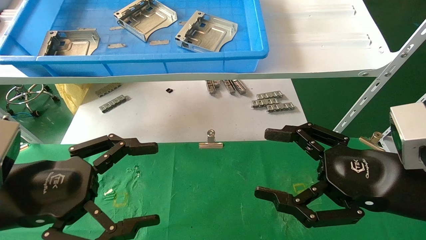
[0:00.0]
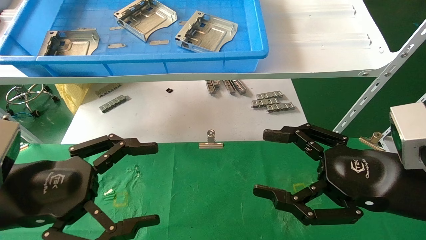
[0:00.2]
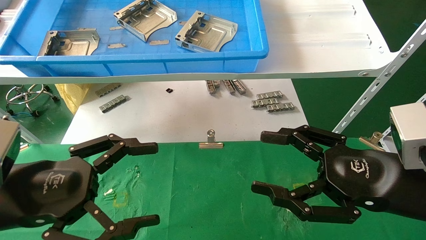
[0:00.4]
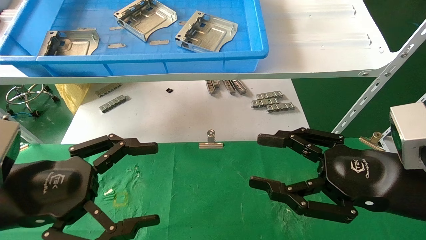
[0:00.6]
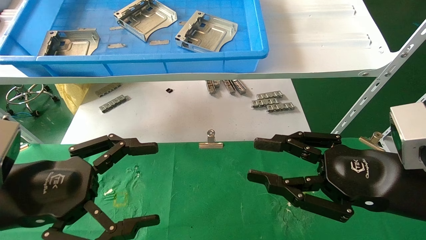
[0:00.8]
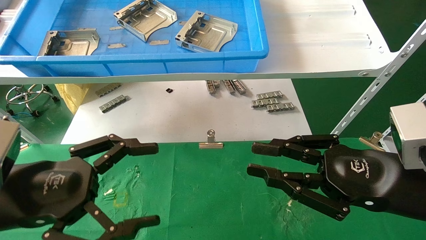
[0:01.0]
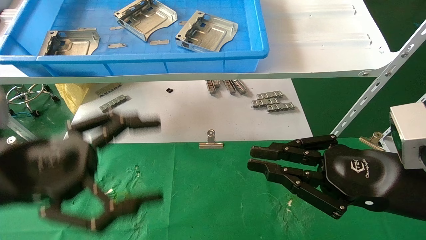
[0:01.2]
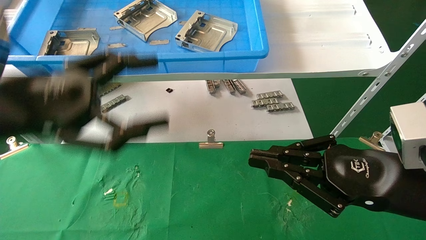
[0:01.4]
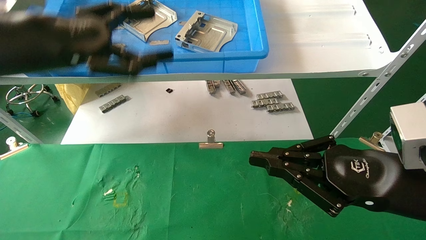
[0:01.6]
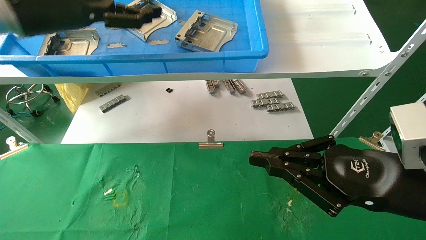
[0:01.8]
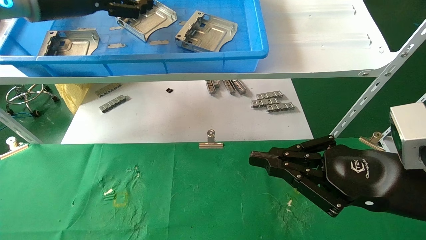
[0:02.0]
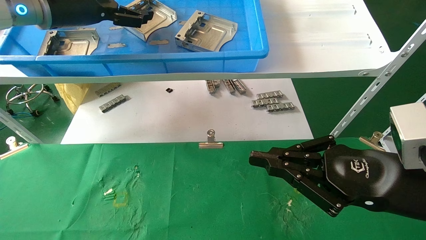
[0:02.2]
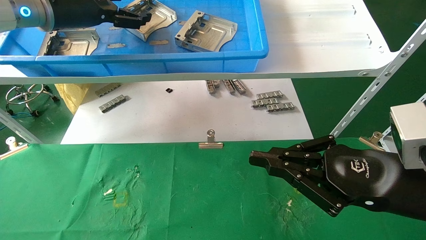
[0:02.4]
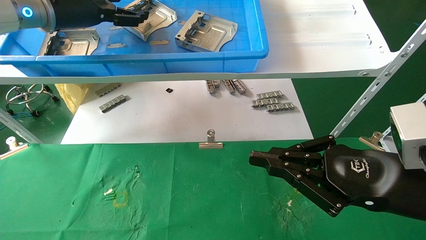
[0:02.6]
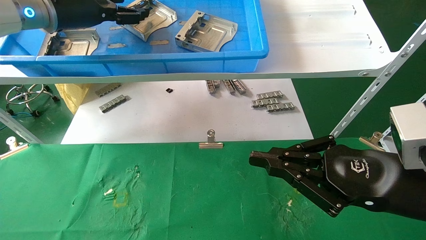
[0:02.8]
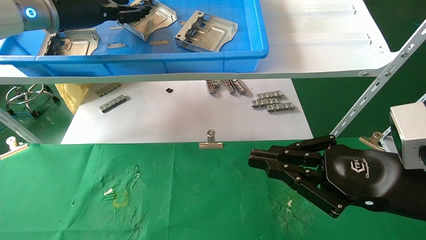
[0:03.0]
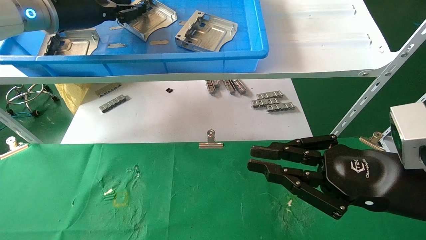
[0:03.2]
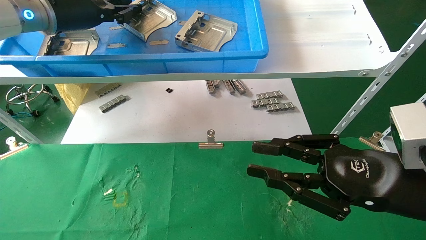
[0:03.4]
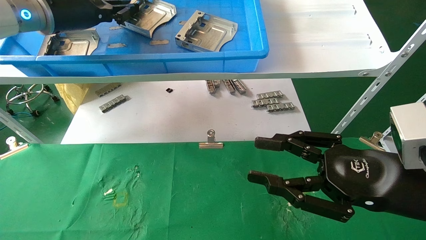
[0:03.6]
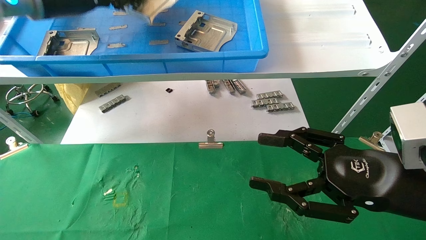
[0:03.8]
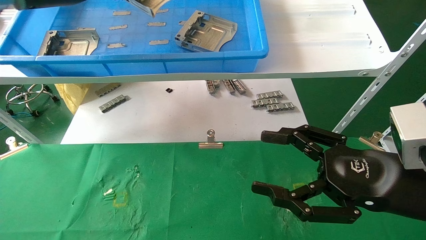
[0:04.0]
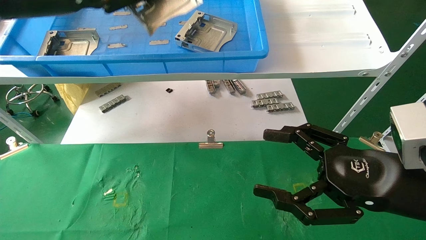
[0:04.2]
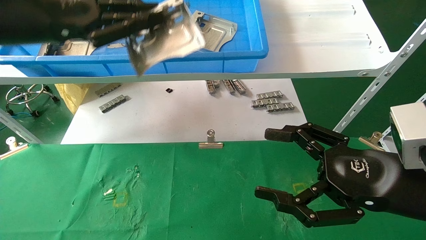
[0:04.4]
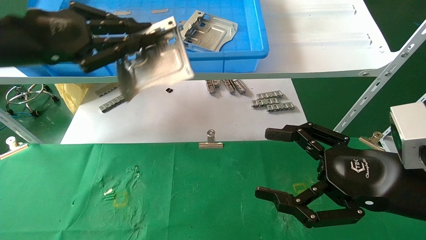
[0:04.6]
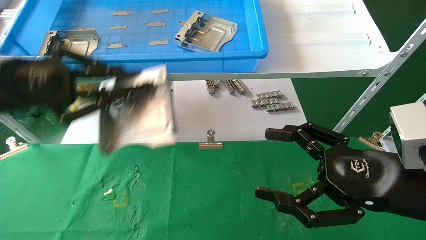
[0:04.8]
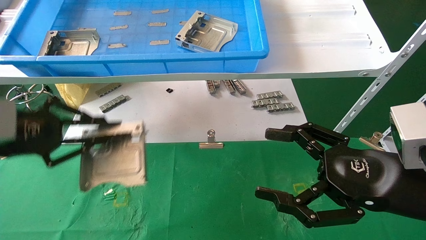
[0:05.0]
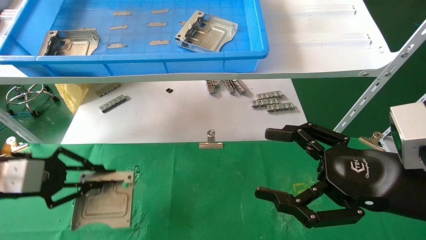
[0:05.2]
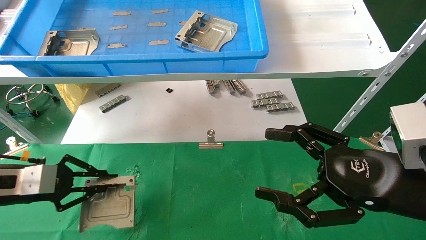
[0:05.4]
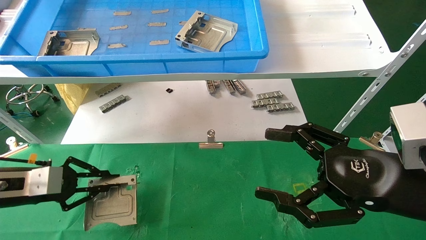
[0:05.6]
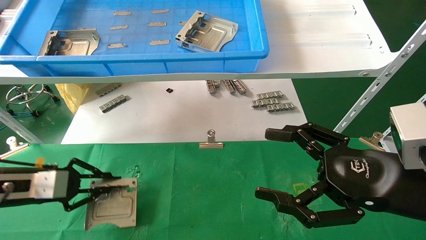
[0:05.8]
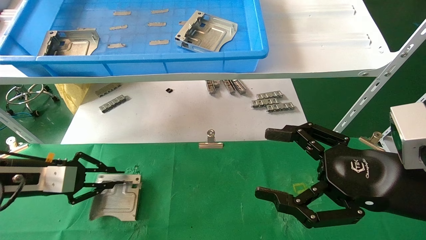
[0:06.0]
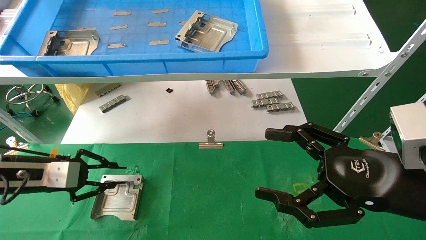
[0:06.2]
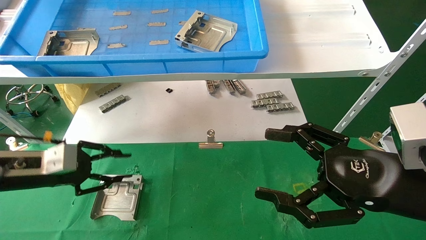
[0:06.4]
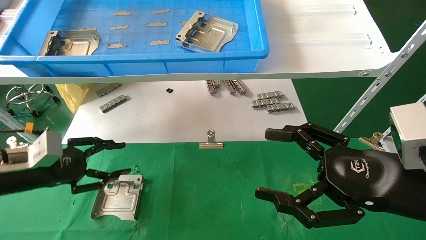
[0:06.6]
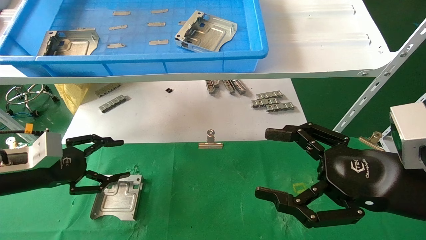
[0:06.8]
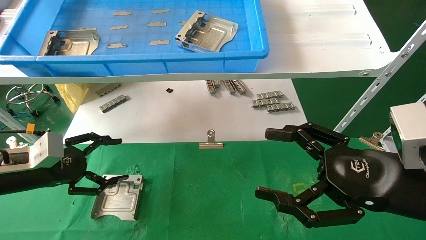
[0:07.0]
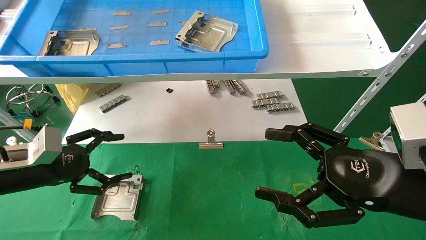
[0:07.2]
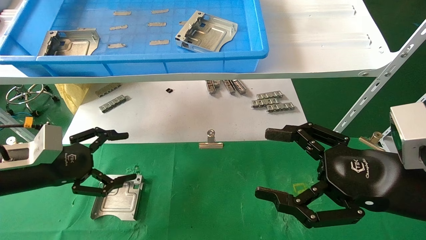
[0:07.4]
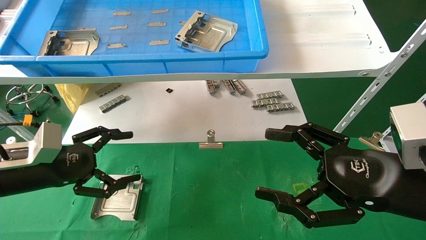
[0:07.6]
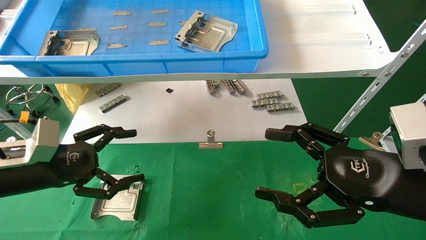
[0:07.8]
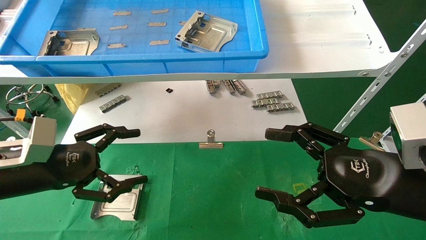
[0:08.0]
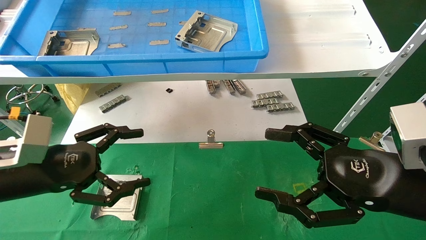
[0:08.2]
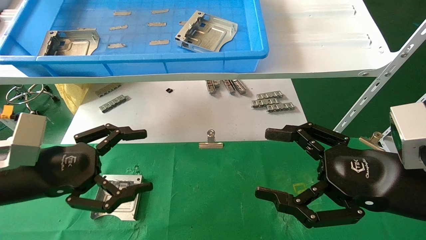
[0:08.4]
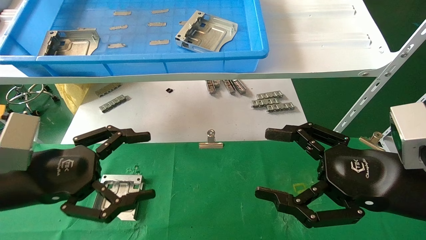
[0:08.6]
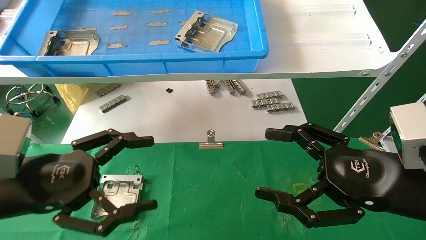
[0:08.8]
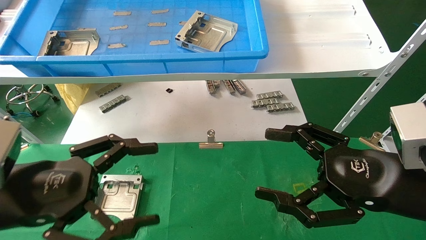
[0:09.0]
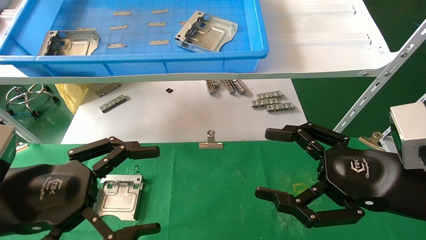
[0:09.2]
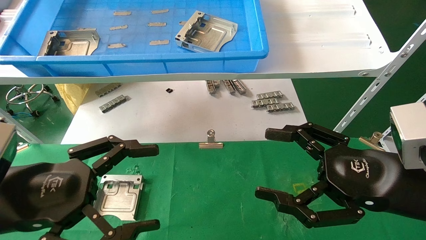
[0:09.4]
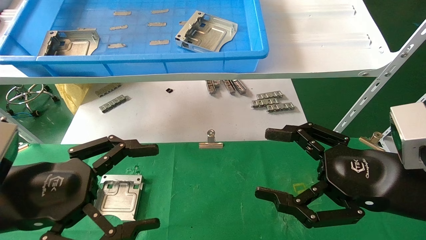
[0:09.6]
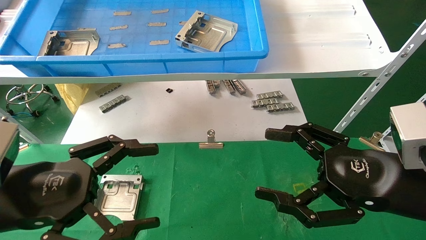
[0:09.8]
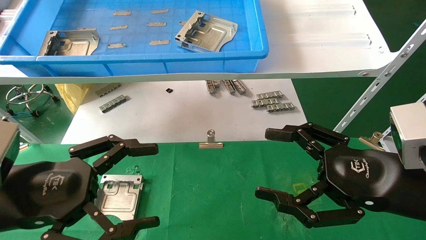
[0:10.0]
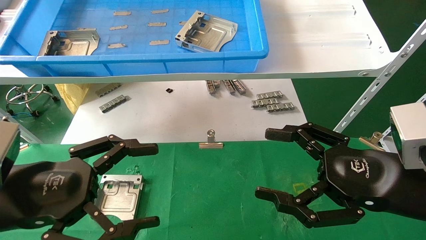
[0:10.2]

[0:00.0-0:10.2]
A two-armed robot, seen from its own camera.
Task of the whole recording: use the mechanical arm to pick up the parts and place them on the table.
Step, 0:01.4 to 0:04.0: Pick up the hard drive bracket from the feeding area.
Step, 0:04.2 to 0:07.0: Place the hard drive bracket into the box.
0:00.0 to 0:01.4: The left gripper moves upward, approximately 10 cm. Meanwhile the right gripper closes up.
0:01.4 to 0:03.0: The left gripper travels forward and upward by approximately 20 cm, and closes up.
0:03.0 to 0:04.4: The right gripper opens. The left gripper goes about 10 cm backward, and closes up.
0:04.4 to 0:05.8: The left gripper travels downward by some 25 cm.
0:05.8 to 0:07.2: The left gripper opens up.
0:07.2 to 0:08.8: The left gripper moves backward and to the right, about 15 cm.
0:08.8 to 0:10.2: The grippers stay close to where they were, moving slightly.
